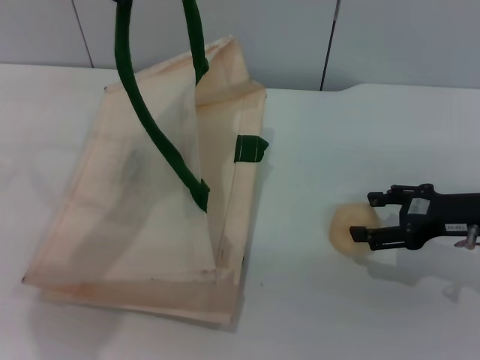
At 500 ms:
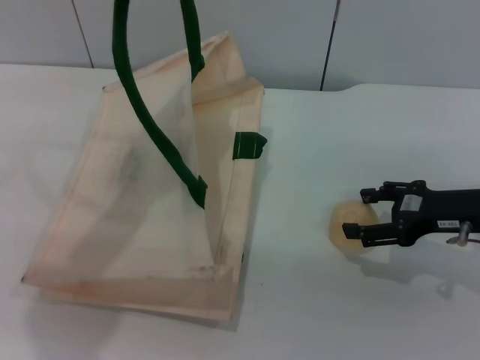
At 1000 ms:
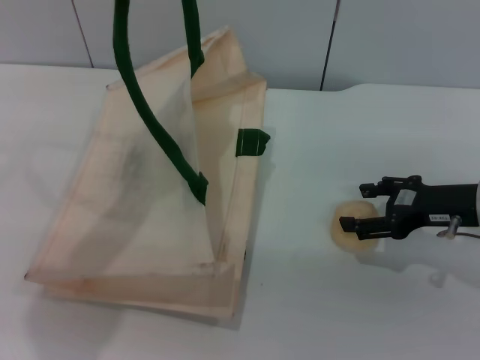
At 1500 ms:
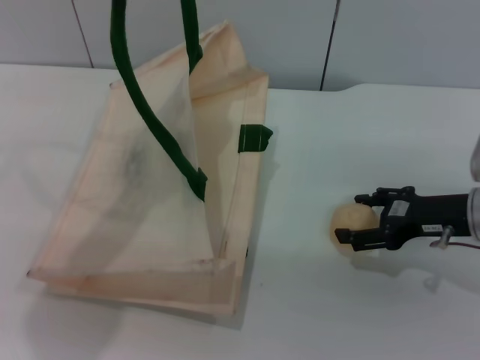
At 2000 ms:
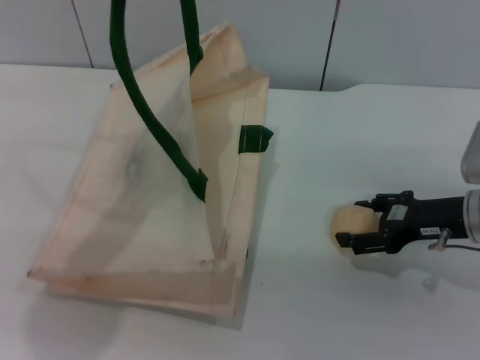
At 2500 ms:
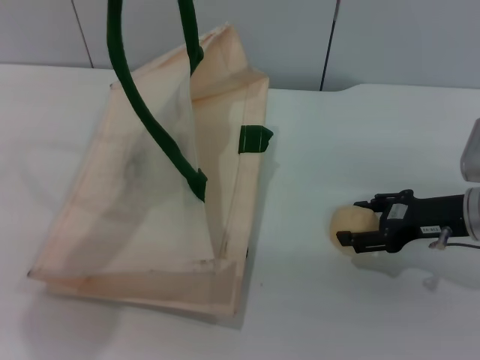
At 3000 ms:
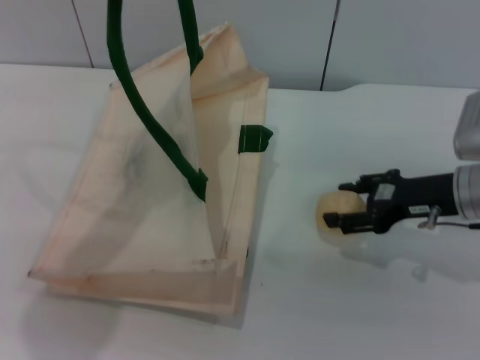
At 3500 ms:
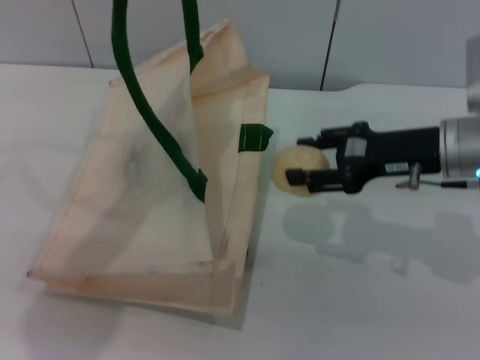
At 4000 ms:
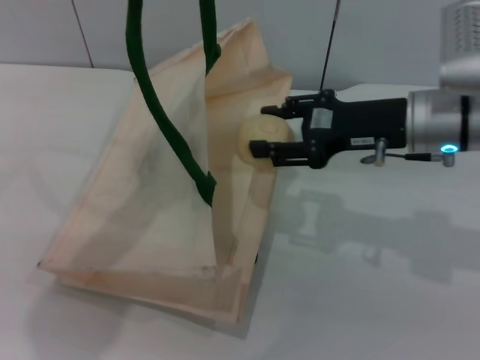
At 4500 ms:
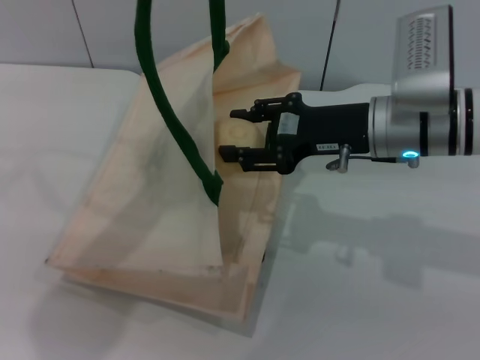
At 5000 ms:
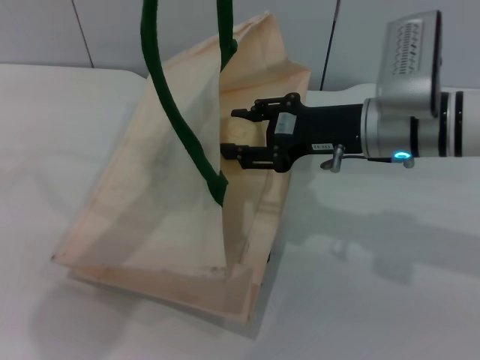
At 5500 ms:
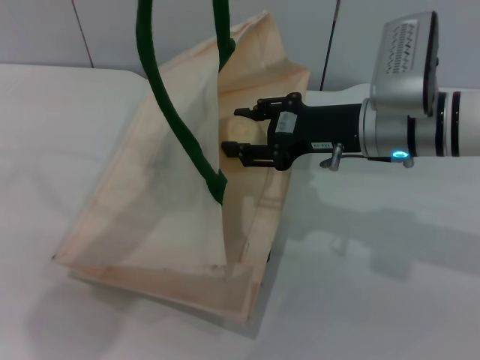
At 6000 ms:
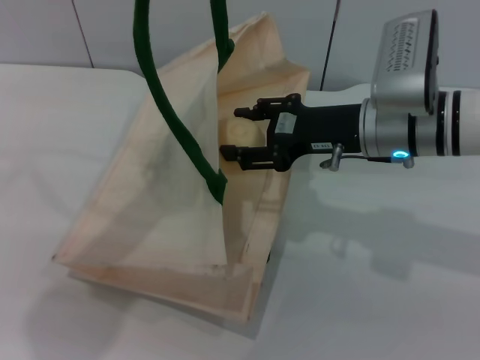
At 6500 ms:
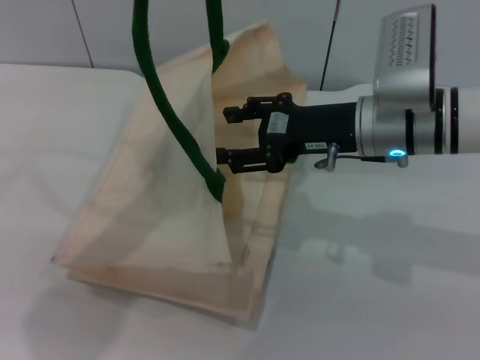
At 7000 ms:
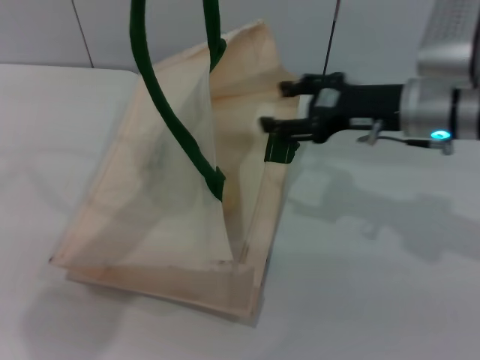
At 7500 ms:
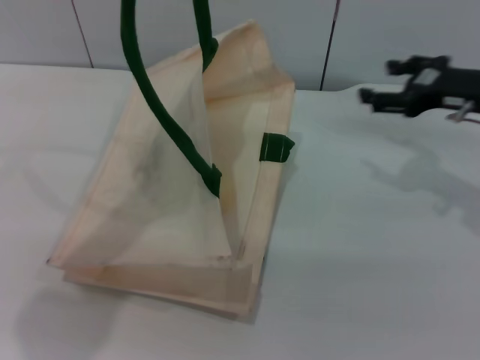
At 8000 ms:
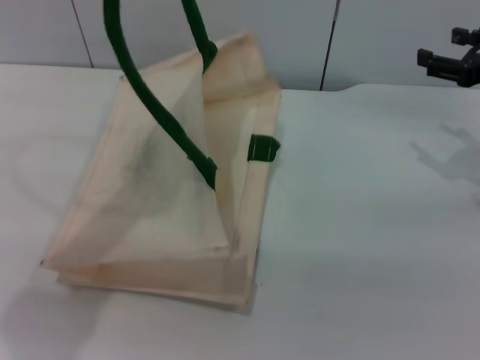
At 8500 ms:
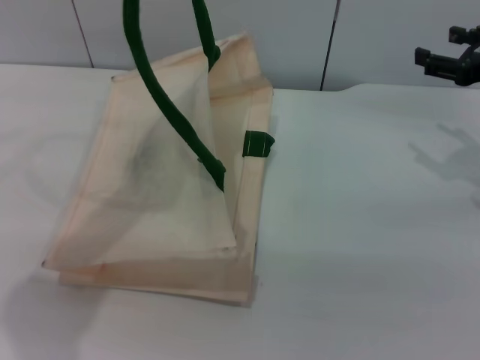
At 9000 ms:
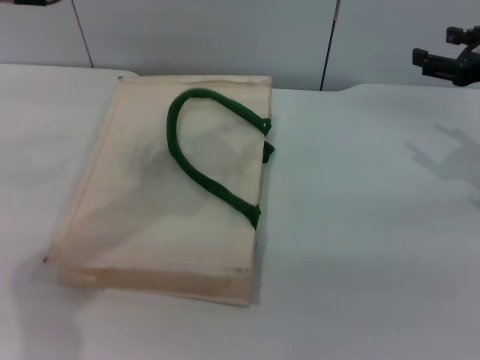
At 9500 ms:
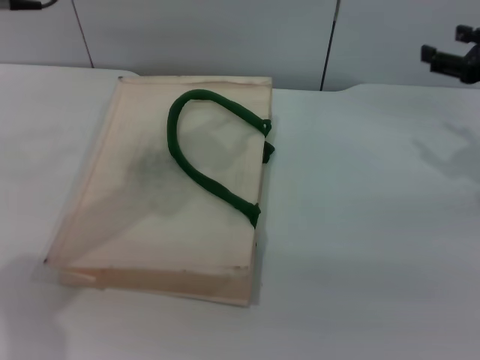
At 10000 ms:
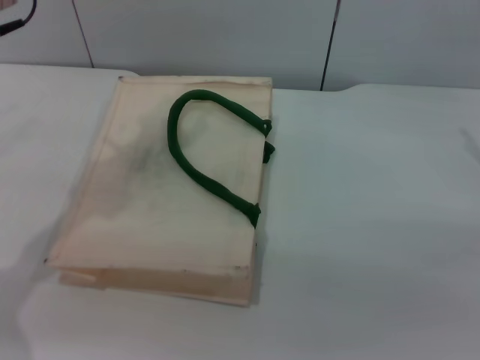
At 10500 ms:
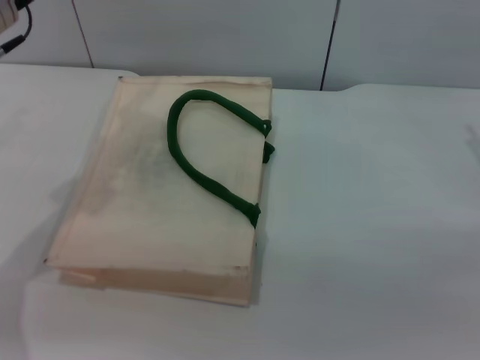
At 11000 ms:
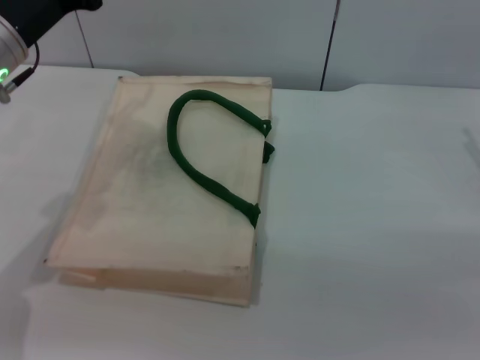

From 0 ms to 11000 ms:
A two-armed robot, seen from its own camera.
Task of the whole recording: pick up the egg yolk pastry from the table and place it in the white handbag.
Step, from 0 ms to 3000 ms: Pick up the egg yolk pastry with the right gripper.
Step, from 3500 ms to 6500 ms: Place the egg yolk pastry into the woven bag with the right gripper.
Step, from 7000 ms to 9000 ms: Lower the woven bag with the left gripper to close it.
From 0 ms to 2000 ms: There are only small adjustments of the grippers.
From 2000 ms to 3500 ms: The right gripper is displaced upward by approximately 5 cm, and closes up.
From 3500 ms to 5500 ms: The right gripper travels to the left by approximately 5 cm.
From 5500 ms to 7500 ms: The right gripper travels to the right by roughly 15 cm, and opens.
From 7500 ms to 9000 ms: The left gripper opens its fingers.
From 9000 ms to 11000 ms: The left gripper goes roughly 15 cm downward and to the left; the right gripper closes up.
